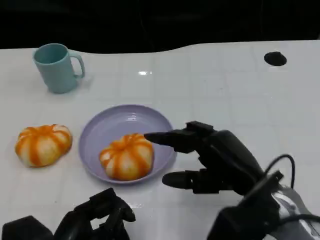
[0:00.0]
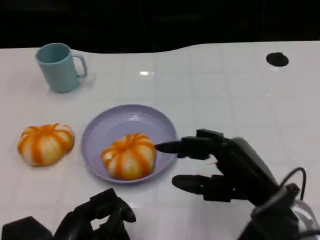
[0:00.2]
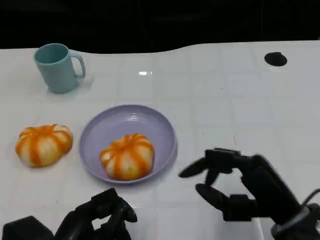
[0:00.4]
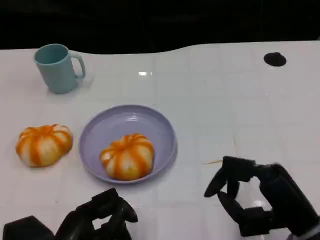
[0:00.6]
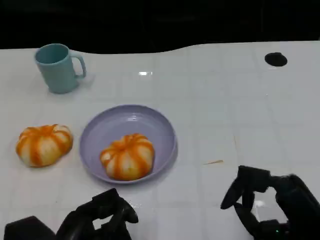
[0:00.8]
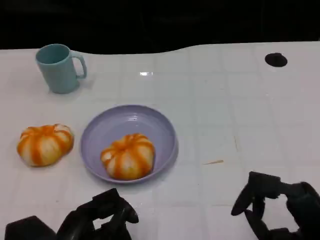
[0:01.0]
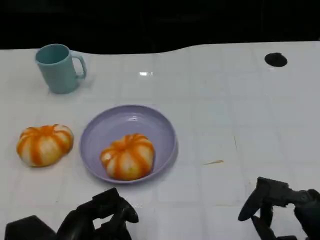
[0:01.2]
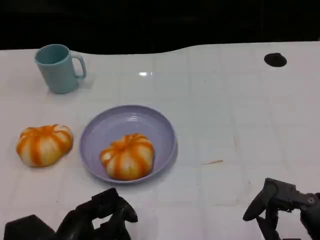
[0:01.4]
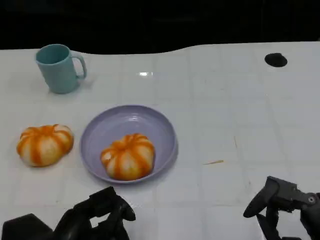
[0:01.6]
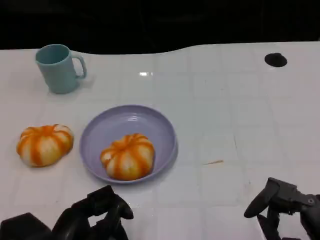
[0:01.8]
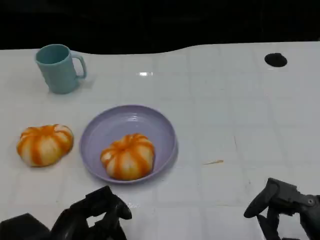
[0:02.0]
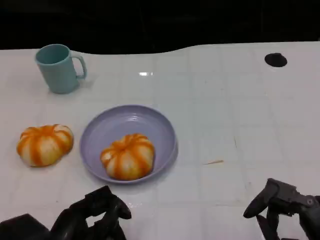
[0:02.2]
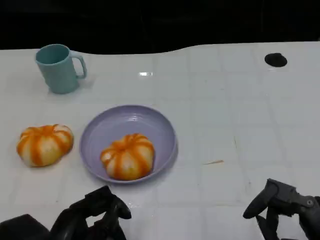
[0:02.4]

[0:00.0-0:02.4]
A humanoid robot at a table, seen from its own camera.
Task of the whole recording: Grasp the bread from the table and place it into the plate.
0:00.0 to 0:01.2: The right hand goes approximately 15 cm to the right and backward.
0:01.2 to 0:02.4: The hands move only a little.

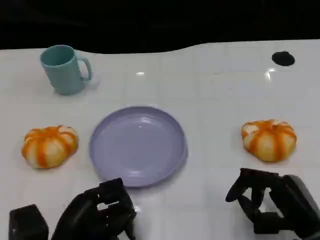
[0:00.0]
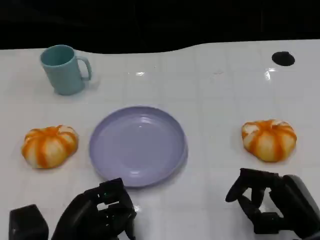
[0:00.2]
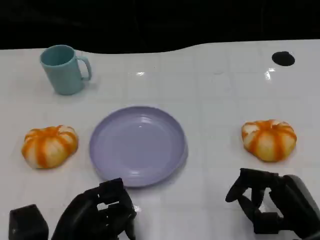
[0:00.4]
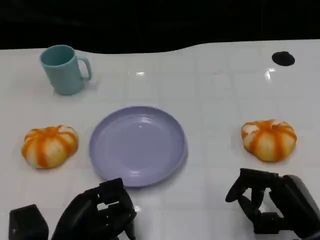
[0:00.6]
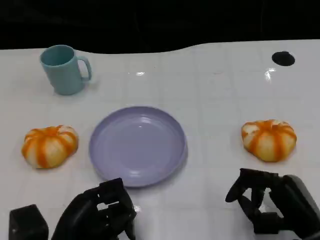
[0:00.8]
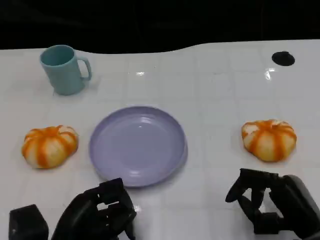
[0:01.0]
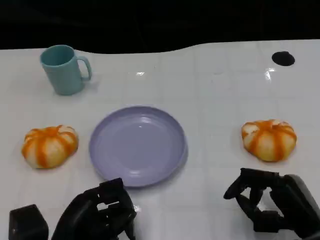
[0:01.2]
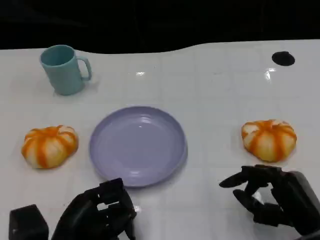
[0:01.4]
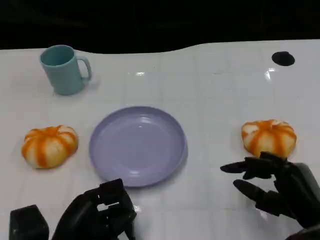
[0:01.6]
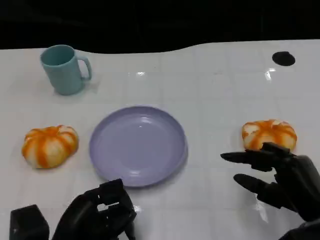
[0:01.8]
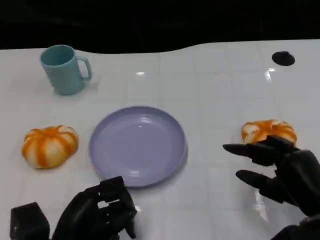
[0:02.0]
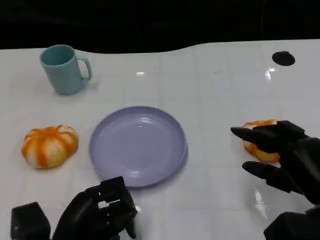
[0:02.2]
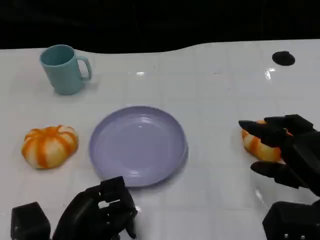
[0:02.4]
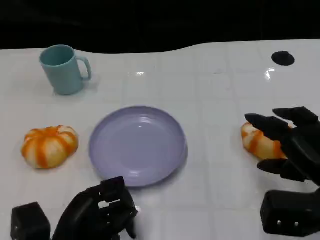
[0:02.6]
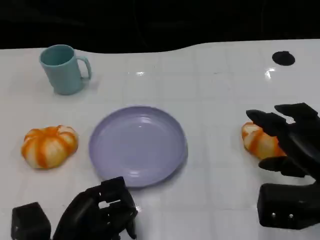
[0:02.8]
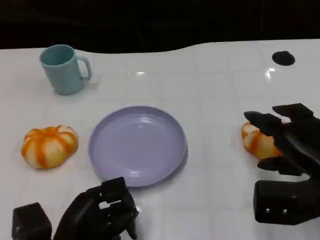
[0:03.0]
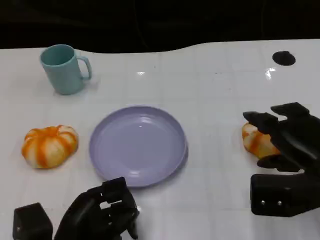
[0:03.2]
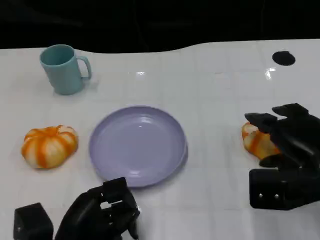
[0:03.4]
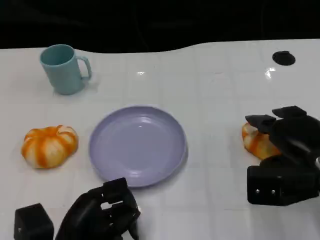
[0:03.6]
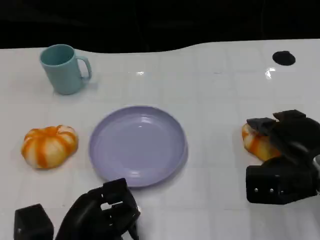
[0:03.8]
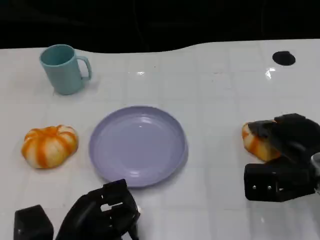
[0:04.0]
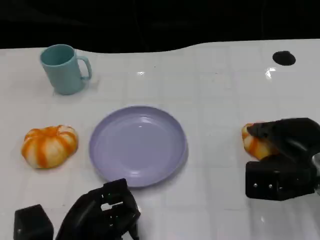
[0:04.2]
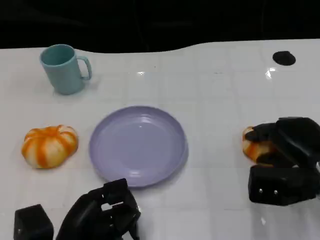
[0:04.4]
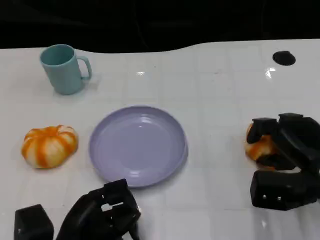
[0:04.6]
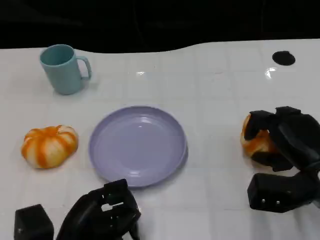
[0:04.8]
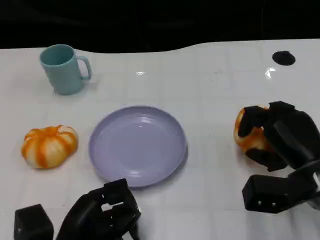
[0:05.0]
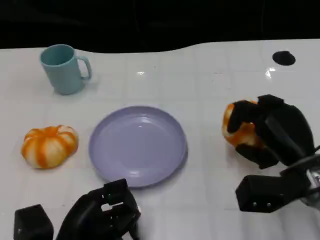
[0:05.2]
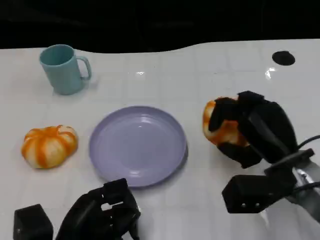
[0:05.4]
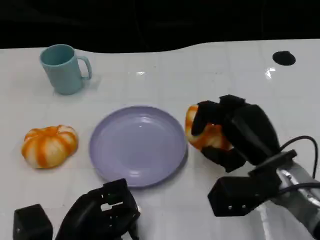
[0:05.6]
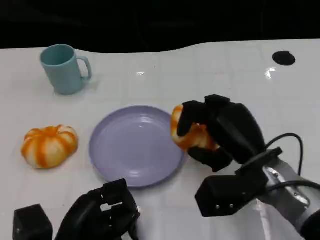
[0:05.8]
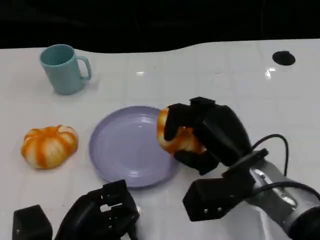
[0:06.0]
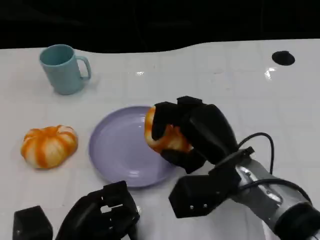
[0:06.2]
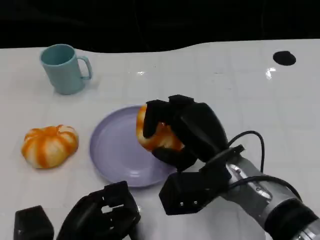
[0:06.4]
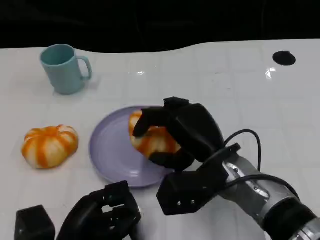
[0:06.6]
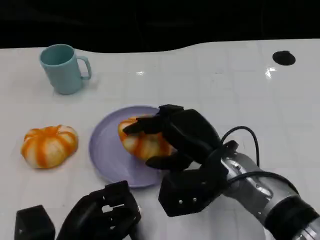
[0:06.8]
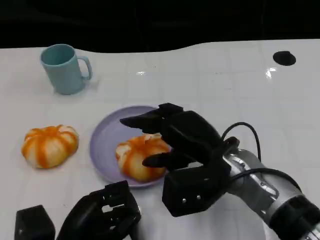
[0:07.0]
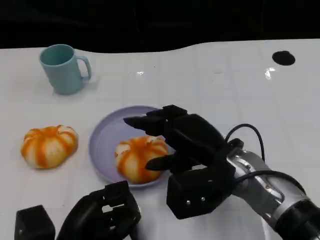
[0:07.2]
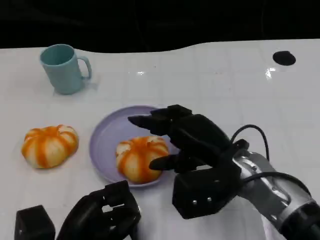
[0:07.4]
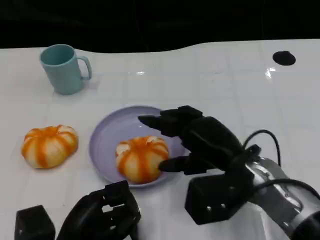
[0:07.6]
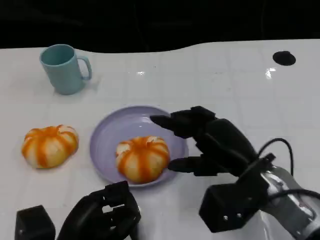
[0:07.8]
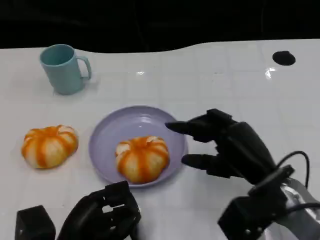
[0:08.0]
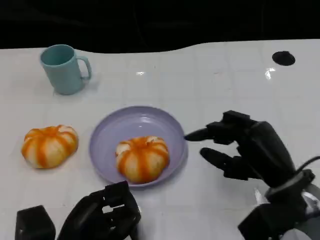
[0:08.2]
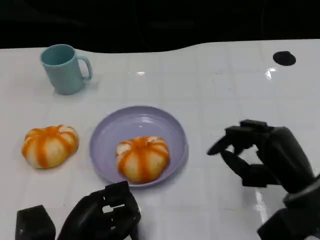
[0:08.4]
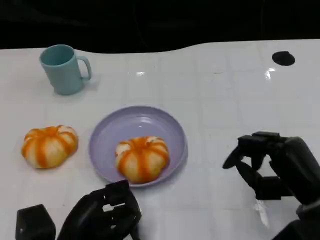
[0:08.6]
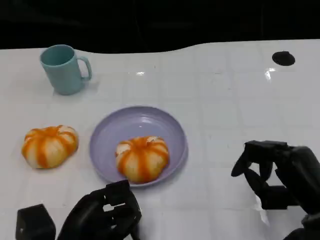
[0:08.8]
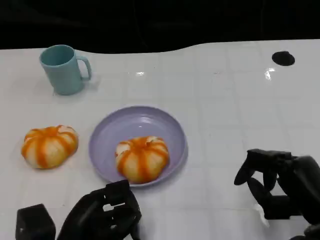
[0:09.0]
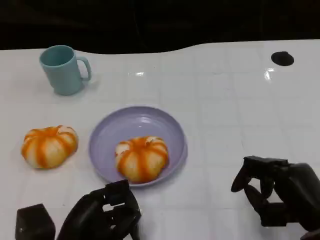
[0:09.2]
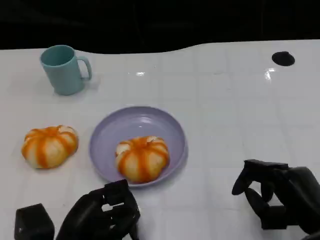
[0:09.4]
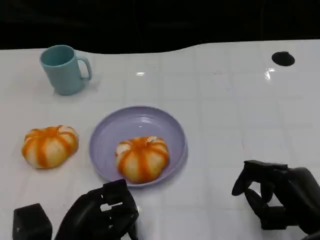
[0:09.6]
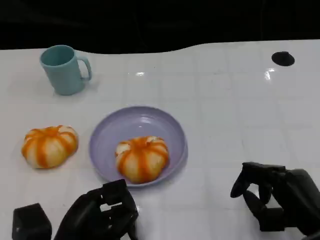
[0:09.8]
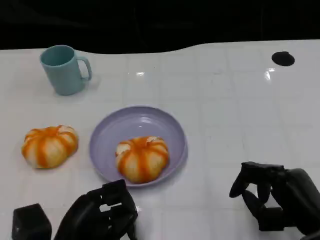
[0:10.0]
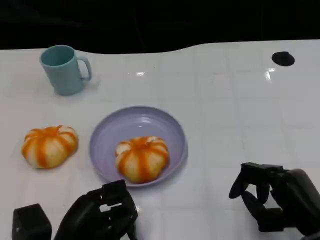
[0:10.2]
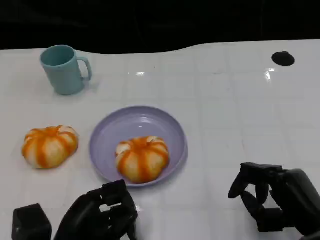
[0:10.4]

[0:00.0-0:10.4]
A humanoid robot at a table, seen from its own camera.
Task of the whole recording: Grasp the bread from the table and place it into the plate.
0:00.0 to 0:01.4: The two hands keep their place.
0:01.4 to 0:03.0: The right hand heads upward and forward, covering about 10 cm.
0:03.0 to 0:04.4: The right hand ends up approximately 5 cm from where it was.
0:04.4 to 0:06.0: The right hand moves to the left, approximately 10 cm.
0:07.4 to 0:09.0: The right hand goes roughly 15 cm to the right and backward.
0:09.0 to 0:10.4: The hands move only a little.

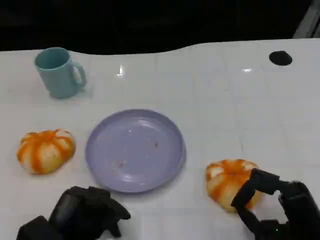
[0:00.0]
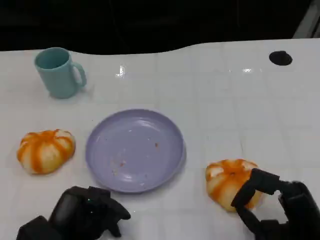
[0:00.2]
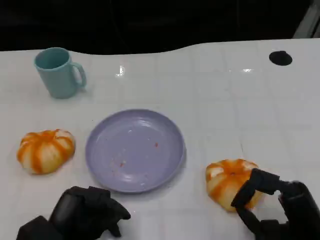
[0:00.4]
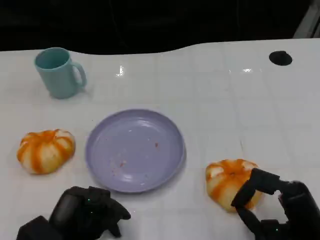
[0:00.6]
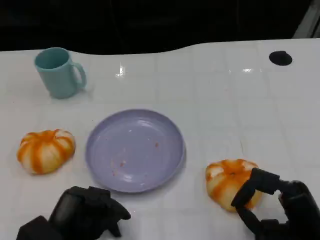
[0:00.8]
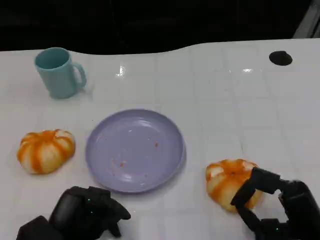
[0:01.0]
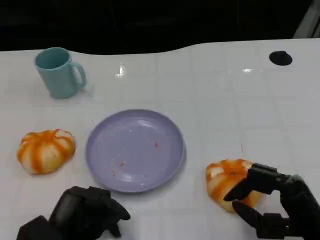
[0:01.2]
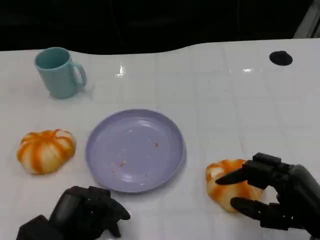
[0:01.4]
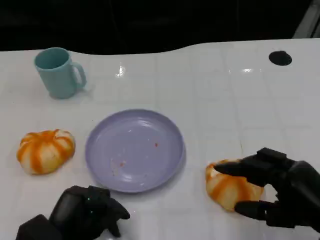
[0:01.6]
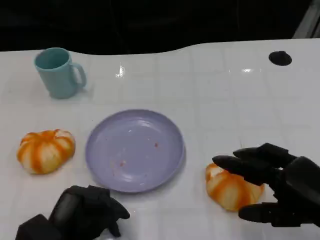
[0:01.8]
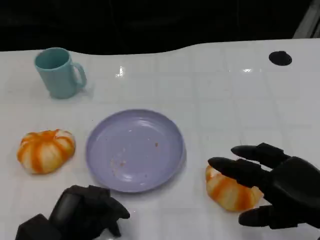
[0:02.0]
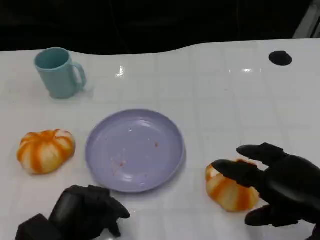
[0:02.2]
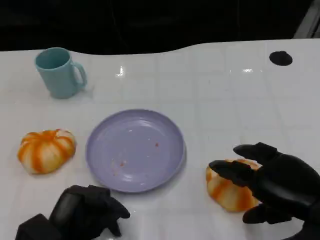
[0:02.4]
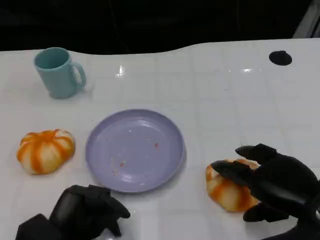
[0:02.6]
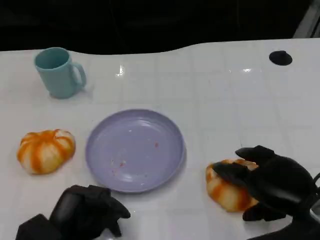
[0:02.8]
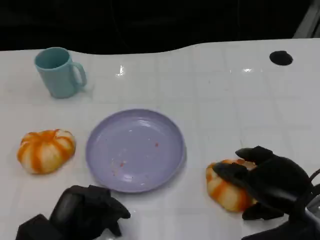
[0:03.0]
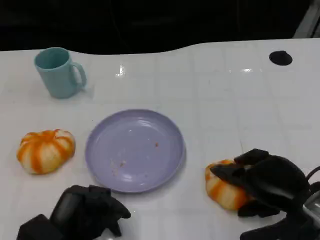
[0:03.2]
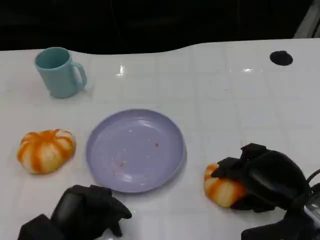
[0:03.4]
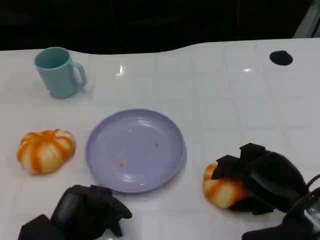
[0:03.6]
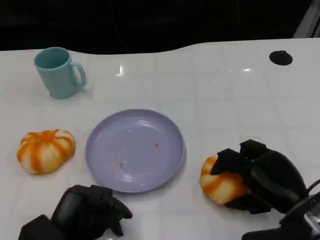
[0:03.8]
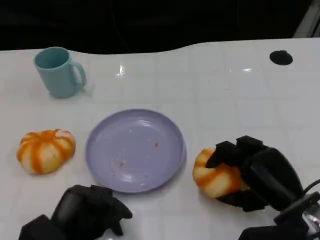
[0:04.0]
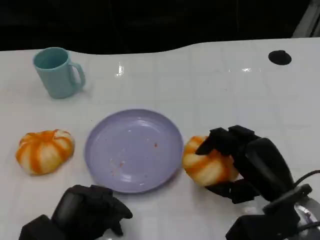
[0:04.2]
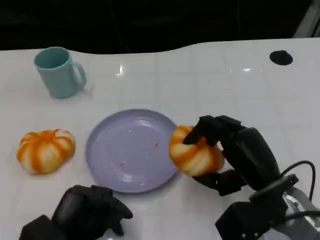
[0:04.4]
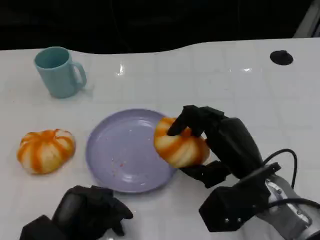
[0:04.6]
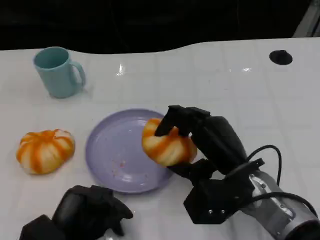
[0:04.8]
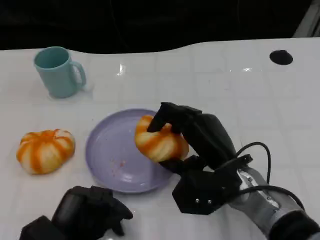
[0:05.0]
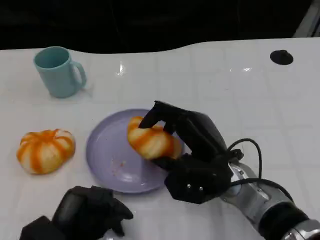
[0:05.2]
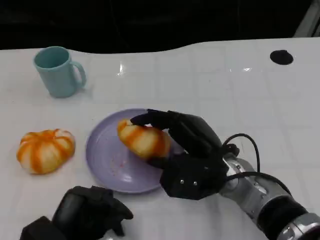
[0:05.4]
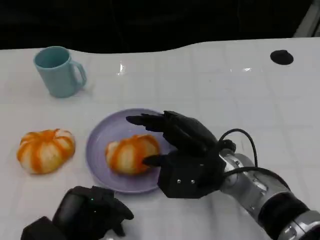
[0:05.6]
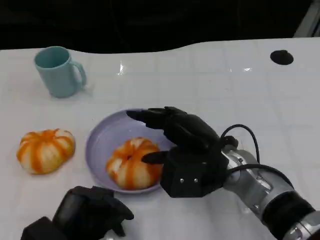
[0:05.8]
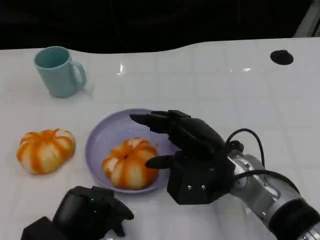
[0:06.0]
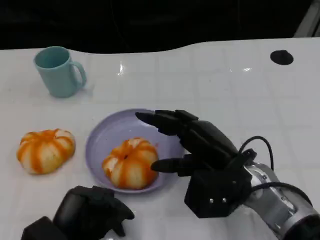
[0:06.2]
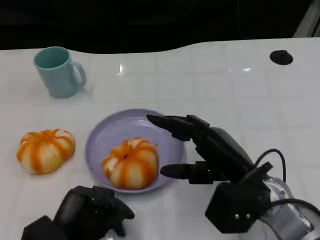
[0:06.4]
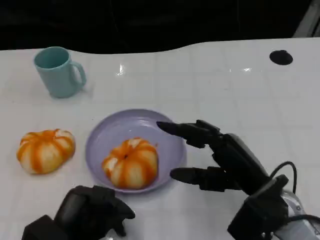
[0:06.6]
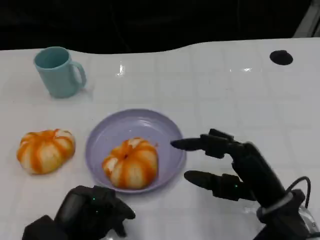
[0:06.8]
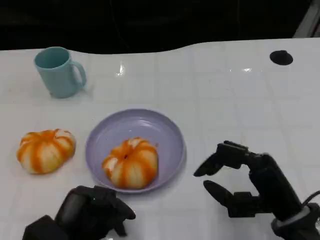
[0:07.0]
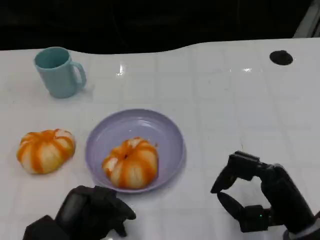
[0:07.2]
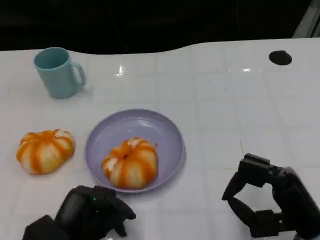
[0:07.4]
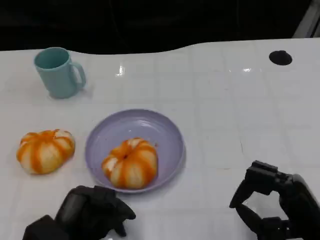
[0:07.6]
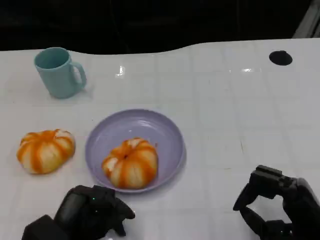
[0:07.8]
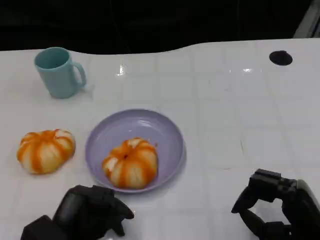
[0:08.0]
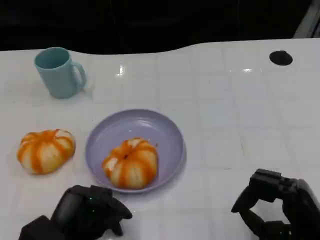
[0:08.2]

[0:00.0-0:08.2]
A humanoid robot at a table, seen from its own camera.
Task of the whole recording: Grasp the bread from the table and place it into the plate.
0:00.0 to 0:01.6: The right hand moves upward, some 5 cm.
0:01.6 to 0:03.2: The right hand shifts by roughly 5 cm.
0:03.2 to 0:05.0: The right hand shifts about 10 cm to the left.
0:05.0 to 0:06.6: The right hand heads to the right, covering roughly 5 cm.
0:06.6 to 0:08.2: The right hand is displaced to the right and backward by about 10 cm.

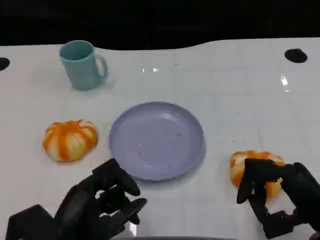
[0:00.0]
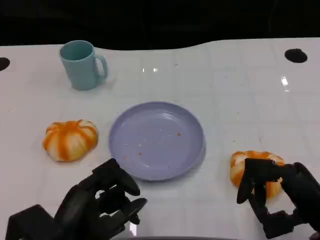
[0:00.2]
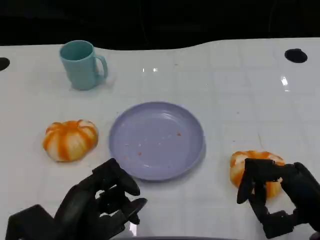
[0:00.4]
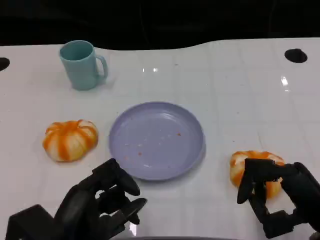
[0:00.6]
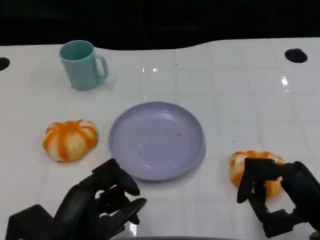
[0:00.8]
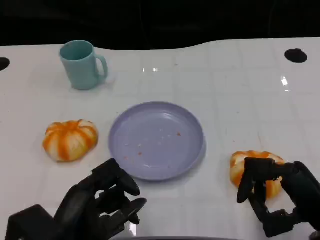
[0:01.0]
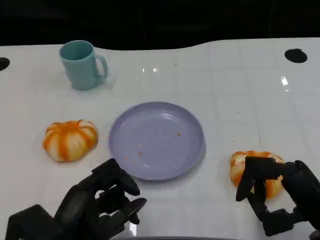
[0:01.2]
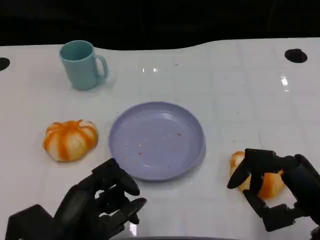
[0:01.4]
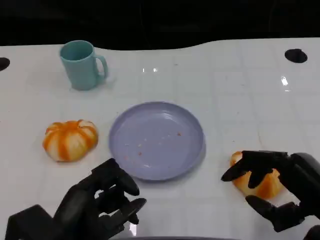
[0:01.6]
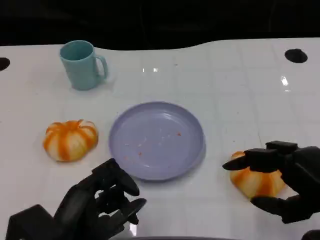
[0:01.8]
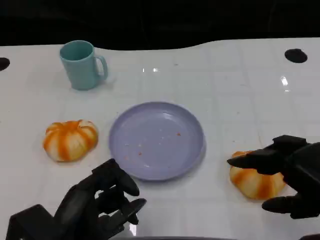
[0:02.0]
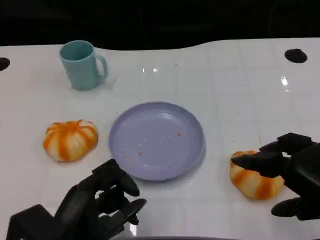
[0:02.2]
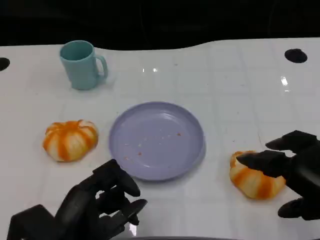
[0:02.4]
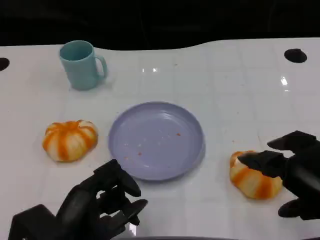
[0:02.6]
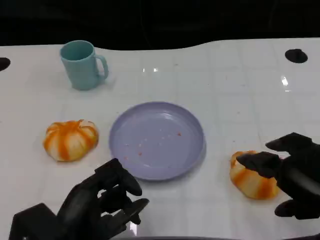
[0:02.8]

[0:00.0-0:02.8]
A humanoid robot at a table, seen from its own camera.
Task of the whole recording: Grasp the bread from the table and place it into the plate.
0:00.0 to 0:01.4: The hands move only a little.
0:01.4 to 0:02.8: The right hand heads upward, covering some 5 cm.
